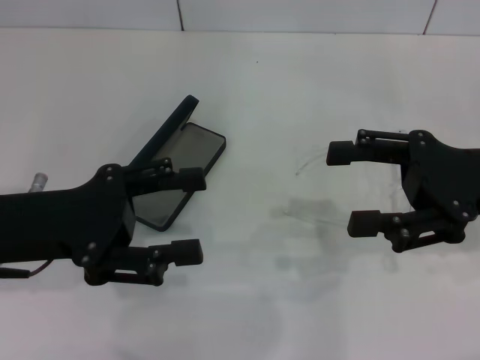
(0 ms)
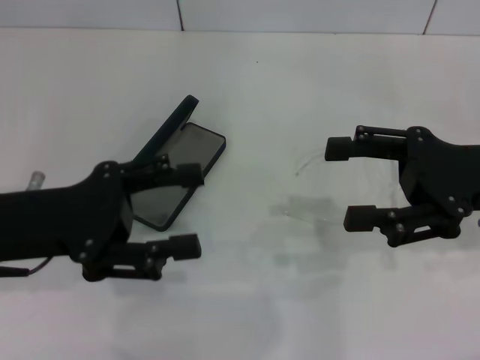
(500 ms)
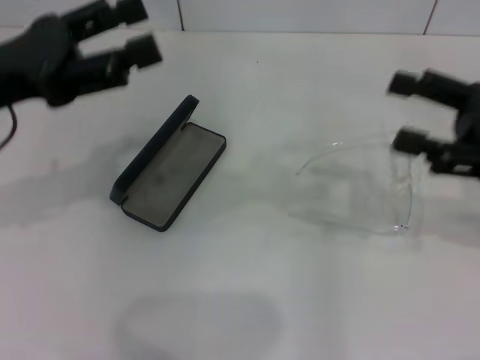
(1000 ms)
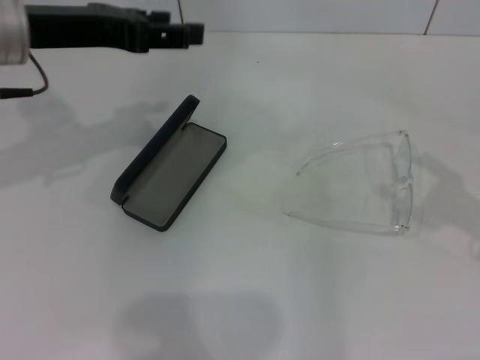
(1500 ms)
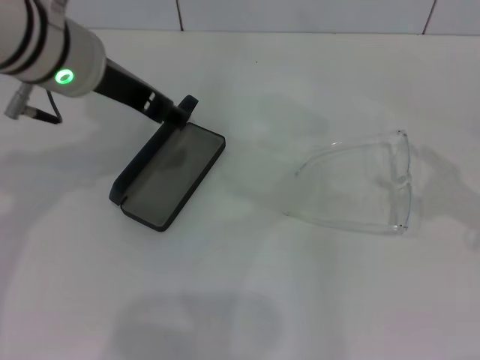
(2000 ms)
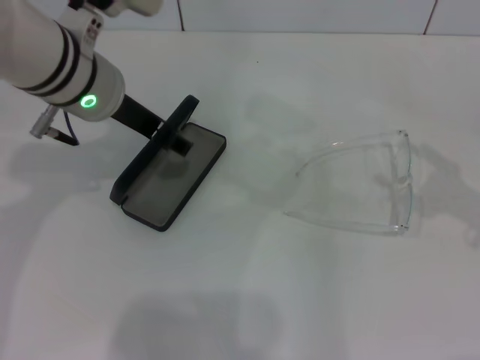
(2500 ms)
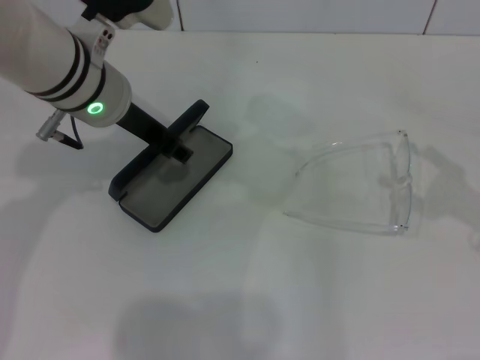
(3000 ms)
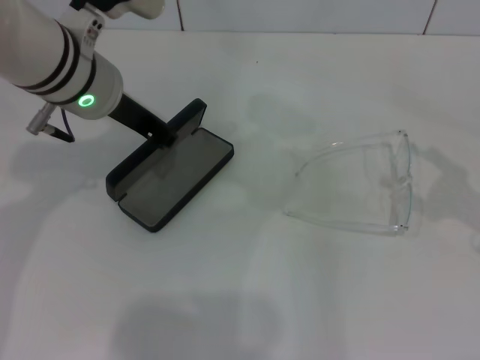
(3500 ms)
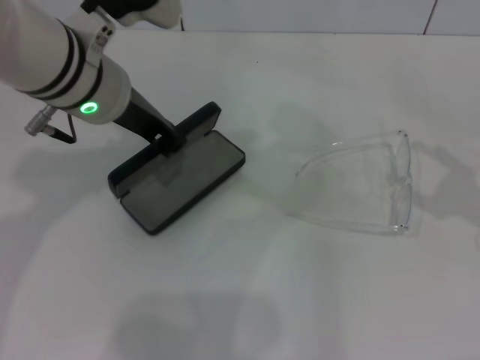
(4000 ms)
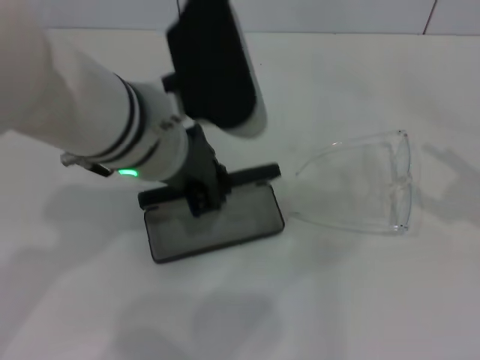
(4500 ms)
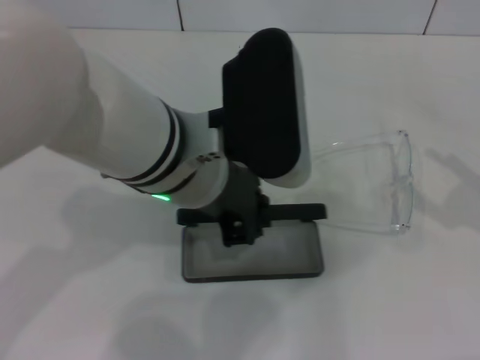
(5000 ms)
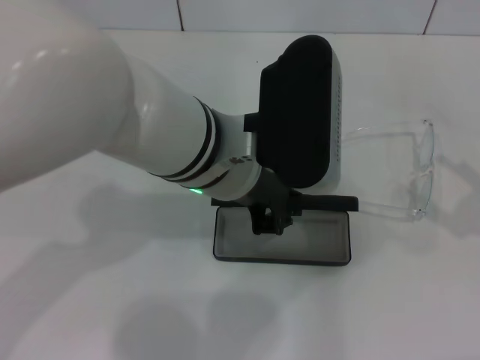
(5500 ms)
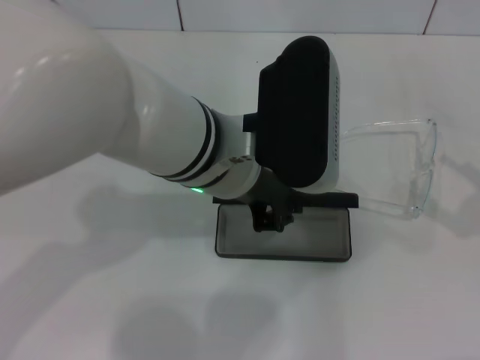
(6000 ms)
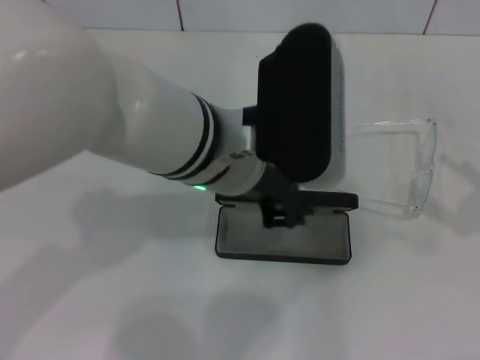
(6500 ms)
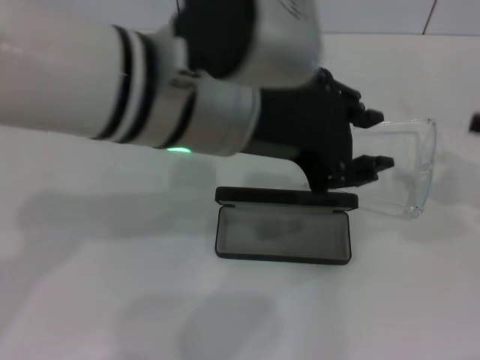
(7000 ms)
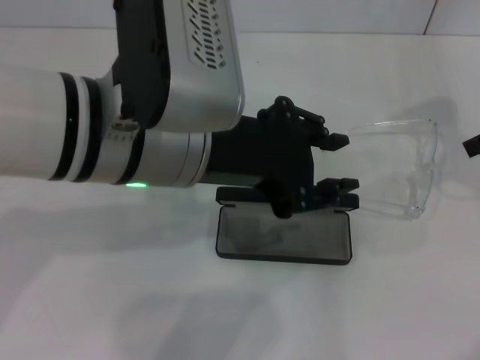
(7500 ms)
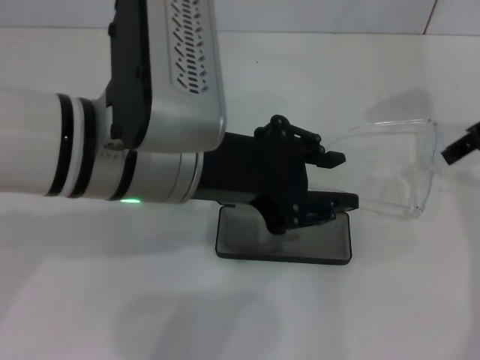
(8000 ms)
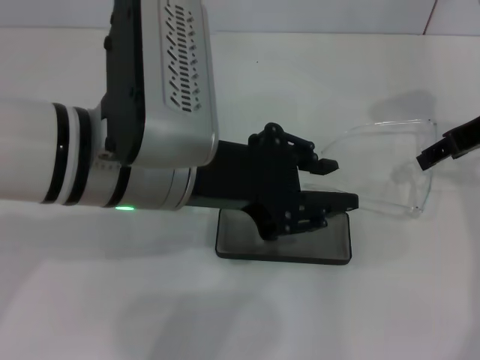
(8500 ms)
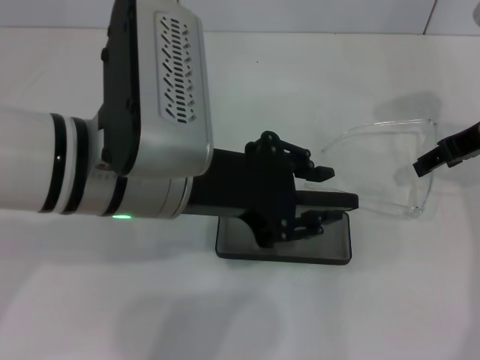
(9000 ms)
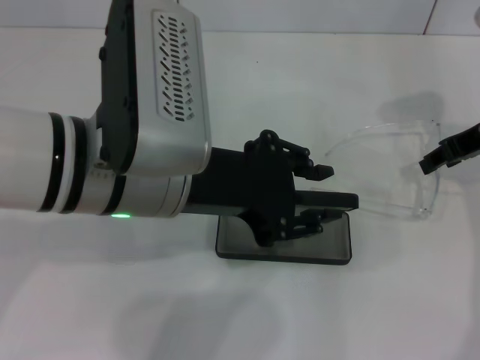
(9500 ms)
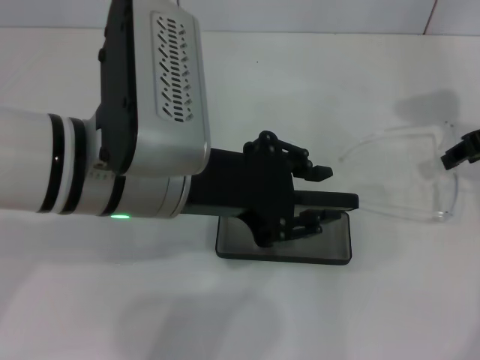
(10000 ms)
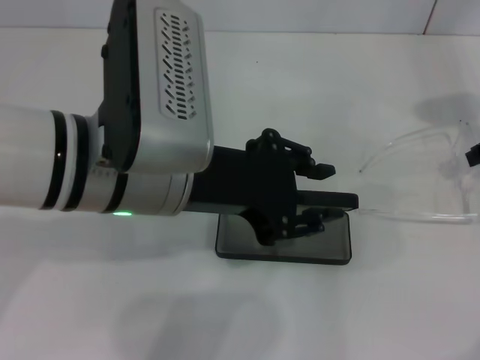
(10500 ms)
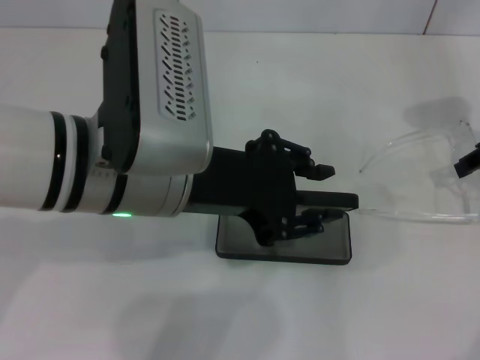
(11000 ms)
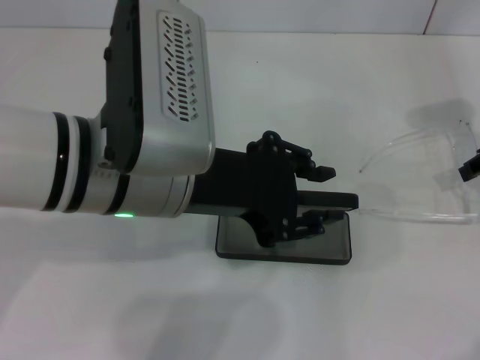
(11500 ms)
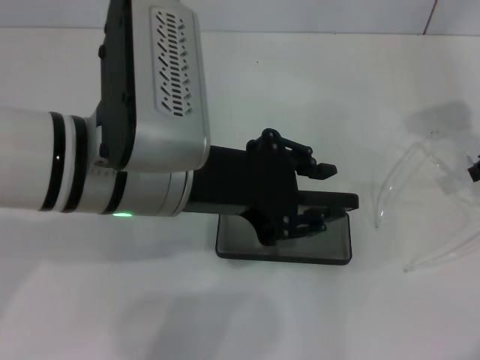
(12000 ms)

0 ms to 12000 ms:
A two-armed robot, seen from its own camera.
Step, 0 ms to 3000 ms: Grab the glasses case with your left hand.
Step, 3500 ms to 6000 ms: Place the glasses case in the center of the table with your left hand.
Step, 6500 ms to 11500 ms: Grab the eyeglass frame with your right hand.
0 ms to 2000 ms: The right gripper travels to the right by about 10 cm. Meanwhile the left gripper is displaced forward, to the right and upward by about 15 cm.
2000 ms to 4000 ms: The left gripper closes.
4000 ms to 6000 ms: The left gripper moves to the right and backward, some 10 cm.
6000 ms to 8000 ms: The left gripper travels to the left by approximately 5 cm. Meanwhile the right gripper moves forward, to the left and upward, approximately 20 cm.
8000 ms to 10000 ms: The right gripper shifts by about 5 cm.
10000 ms to 12000 ms: The grippers stay close to where they were, moving slightly.

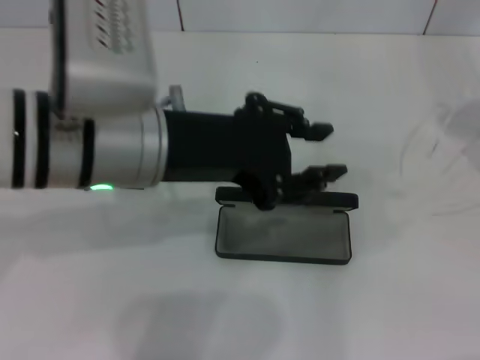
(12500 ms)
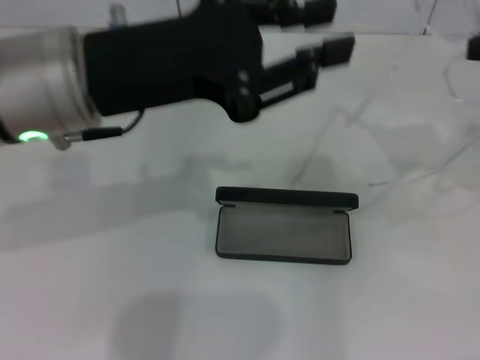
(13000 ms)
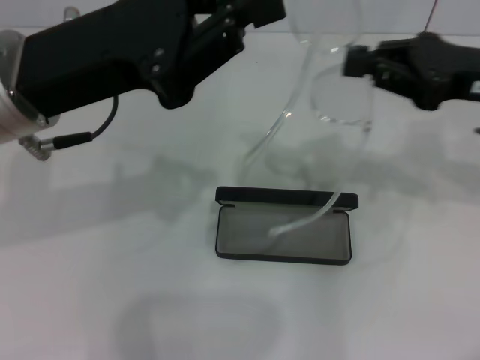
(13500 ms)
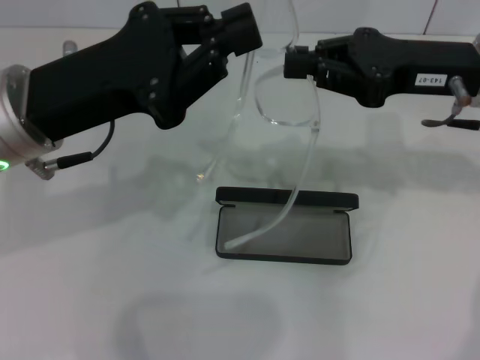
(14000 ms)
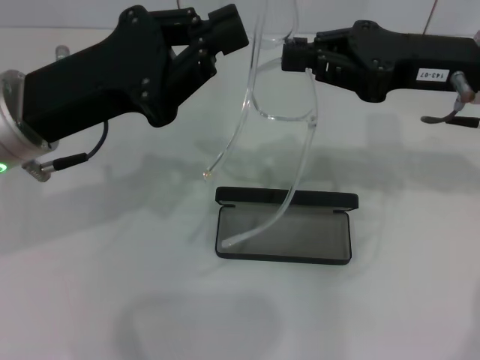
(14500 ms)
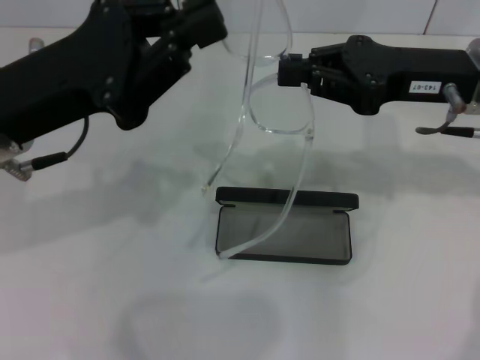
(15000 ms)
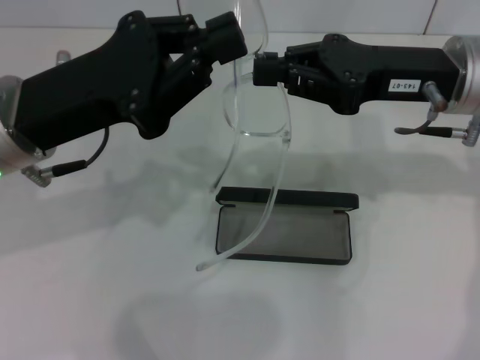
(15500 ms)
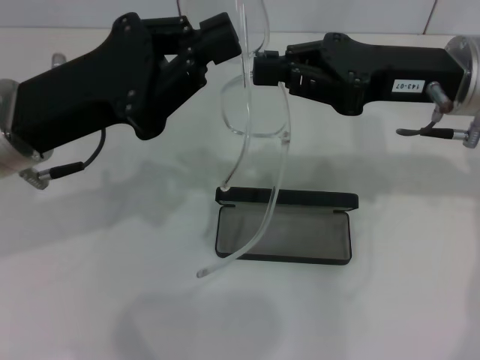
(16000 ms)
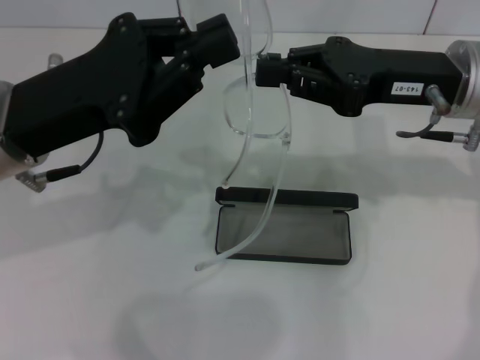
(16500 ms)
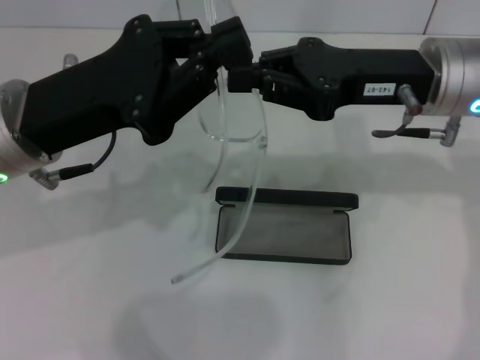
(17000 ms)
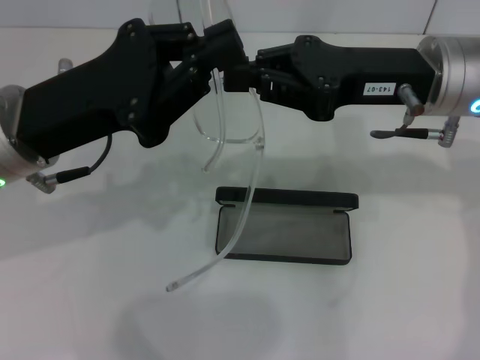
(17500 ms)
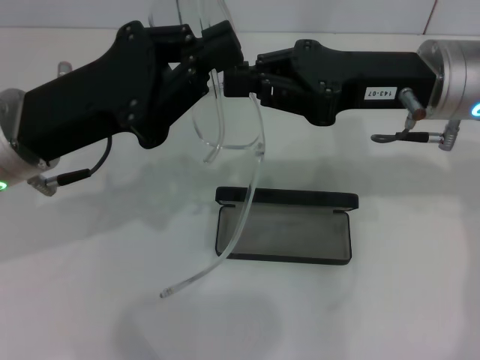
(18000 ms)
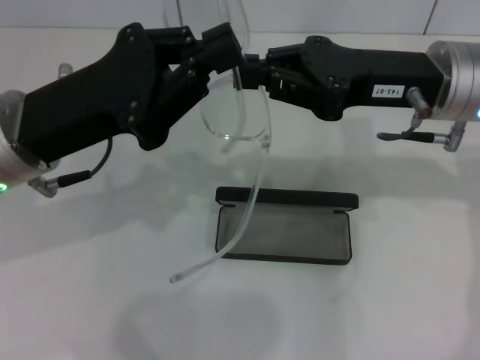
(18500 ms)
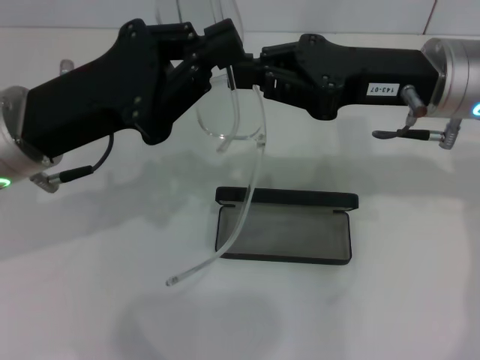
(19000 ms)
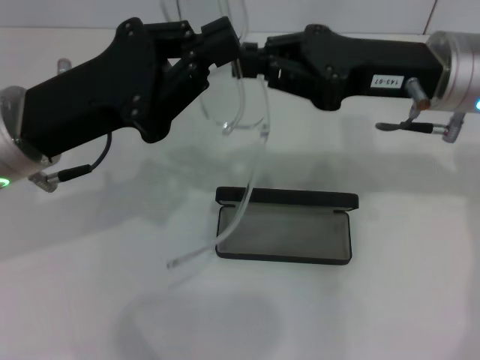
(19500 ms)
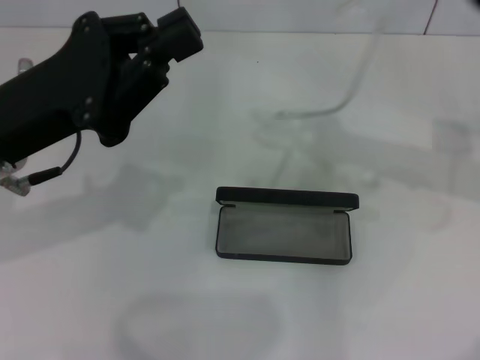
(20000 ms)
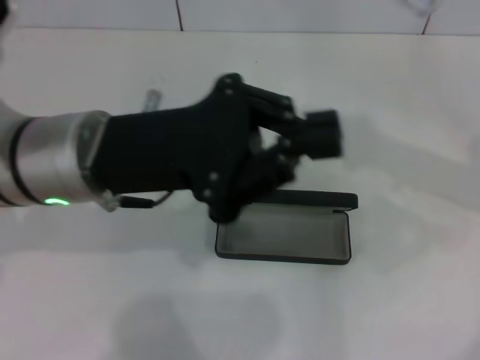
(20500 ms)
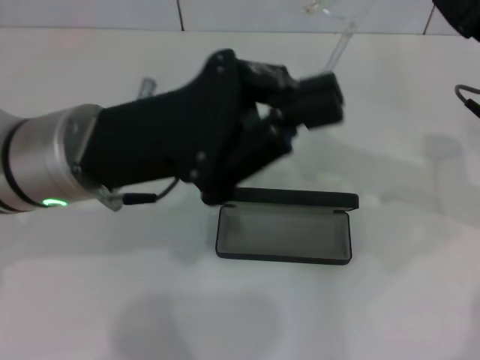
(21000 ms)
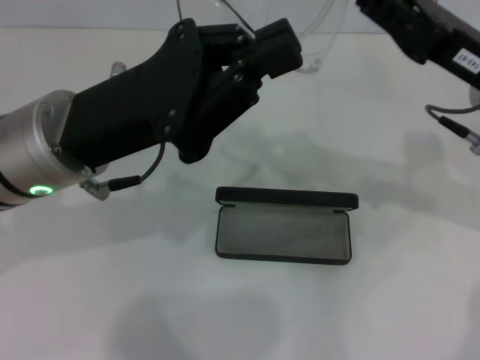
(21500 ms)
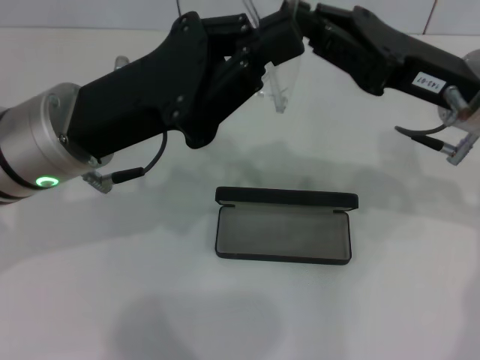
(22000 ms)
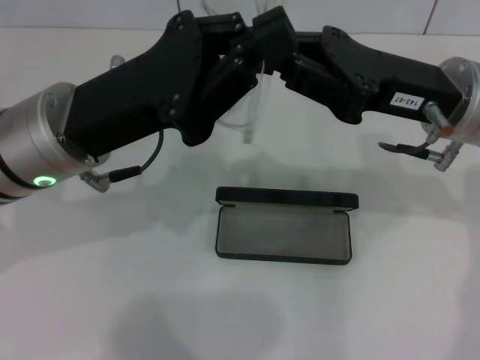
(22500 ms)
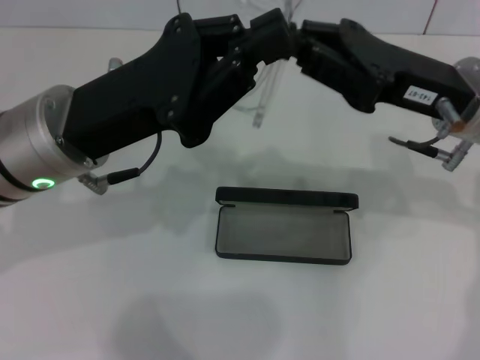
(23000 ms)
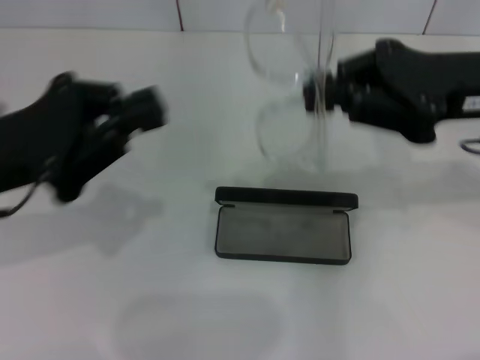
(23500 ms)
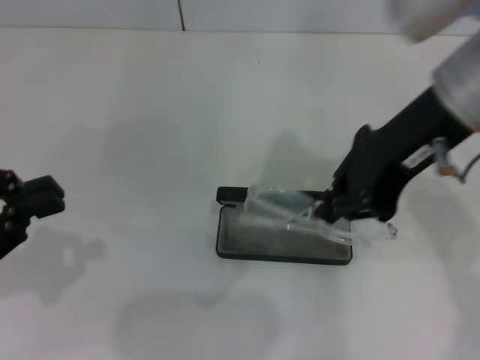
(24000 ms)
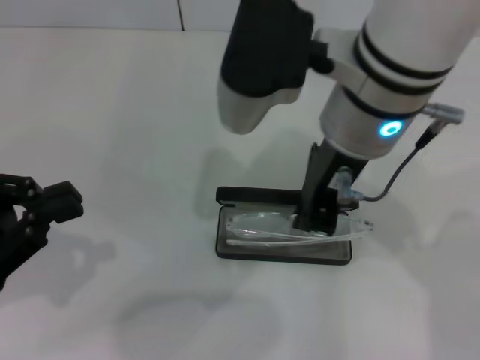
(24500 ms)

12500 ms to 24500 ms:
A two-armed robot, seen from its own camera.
Step, 12500 ms to 22500 ms: Fold the frame with your left hand.
12500 ms to 14500 ms: The right gripper heads to the left, covering approximately 15 cm, while the left gripper moves to the left, some 10 cm, and closes up.
14500 ms to 18500 ms: The grippers make only small movements.
18500 ms to 20500 ms: The left gripper shifts about 5 cm to the right; the right gripper moves to the right, roughly 10 cm.
20500 ms to 22500 ms: The right gripper shifts approximately 10 cm to the left.
22500 ms to 24500 ms: The left gripper goes some 15 cm to the left and backward. The right gripper goes approximately 15 cm to the left and upward.

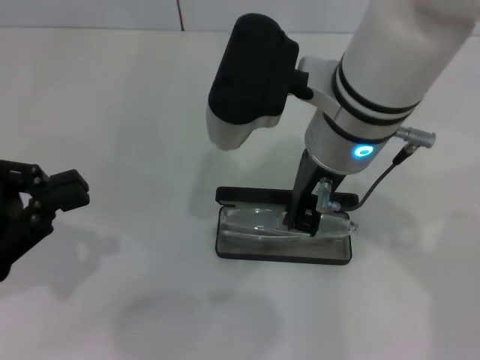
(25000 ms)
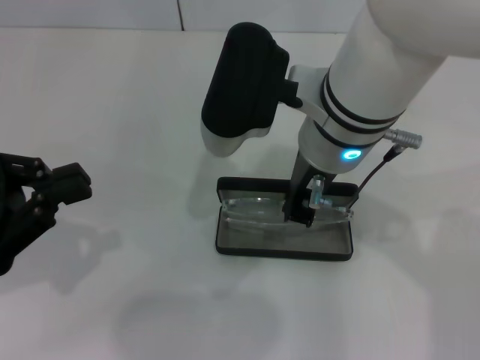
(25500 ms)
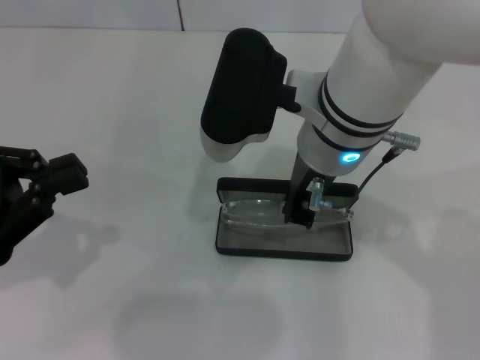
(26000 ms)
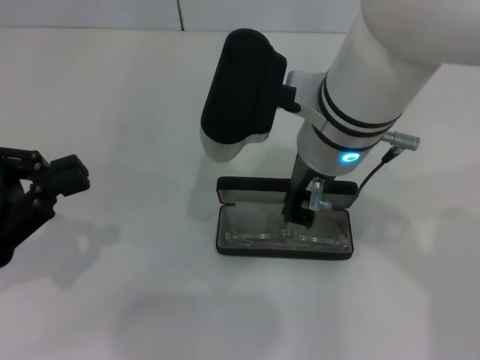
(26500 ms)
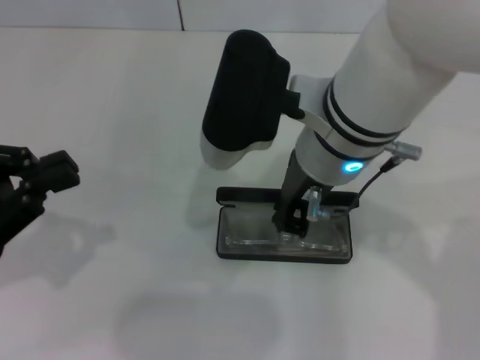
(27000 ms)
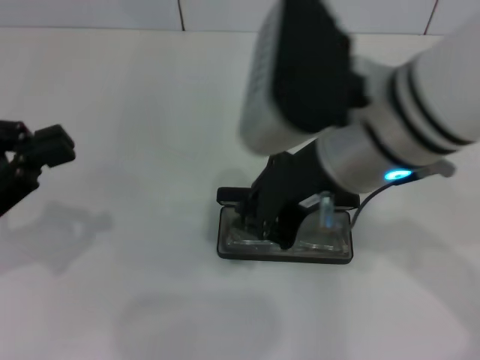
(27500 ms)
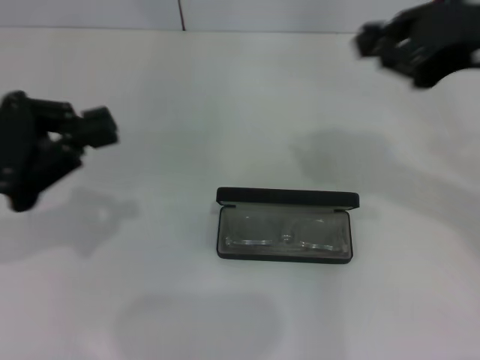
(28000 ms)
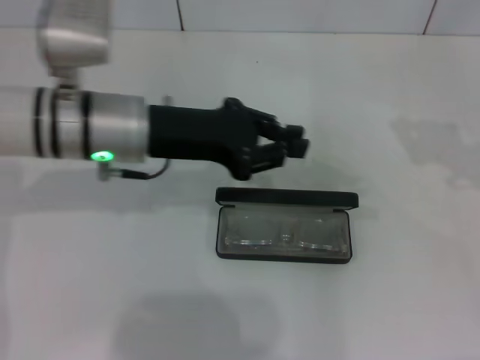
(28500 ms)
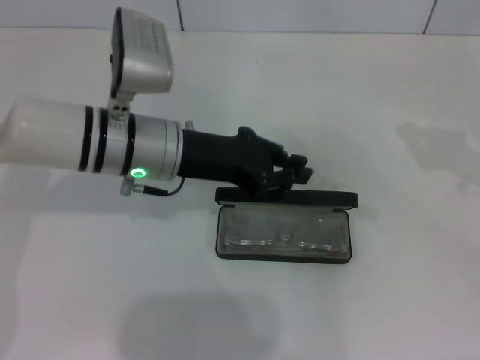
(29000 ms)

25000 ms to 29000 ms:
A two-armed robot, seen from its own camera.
25000 ms to 27000 ms: The grippers stay close to where they were, moving slightly.
27000 ms to 29000 ms: The left gripper goes approximately 25 cm to the right and forward; the right gripper heads to the right, covering some 30 cm.
